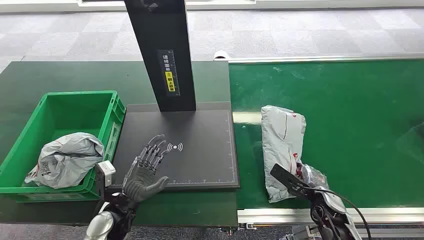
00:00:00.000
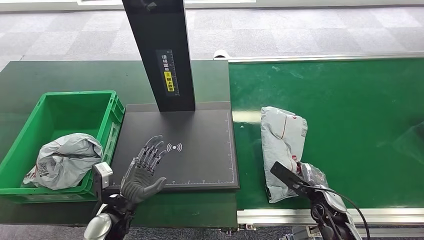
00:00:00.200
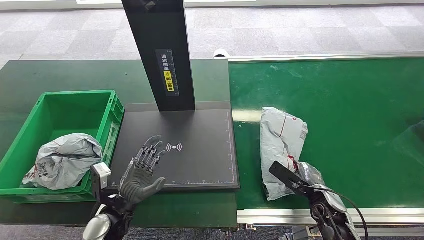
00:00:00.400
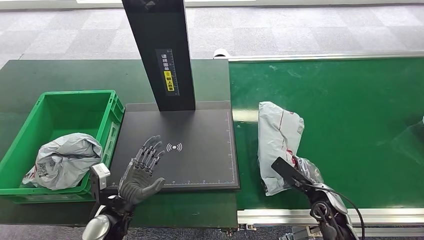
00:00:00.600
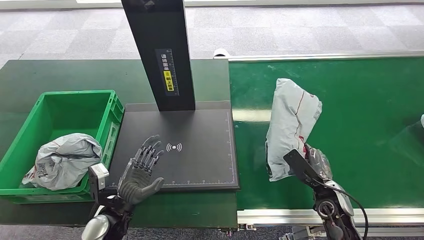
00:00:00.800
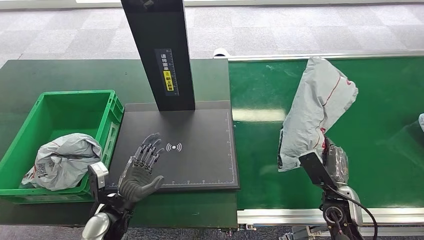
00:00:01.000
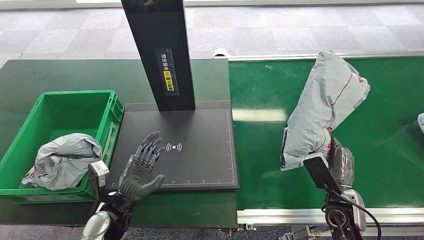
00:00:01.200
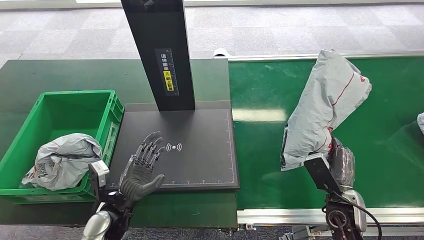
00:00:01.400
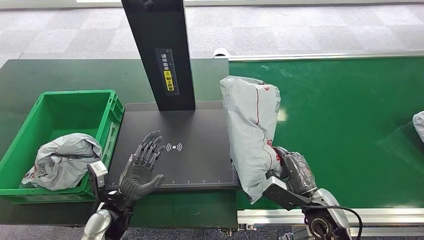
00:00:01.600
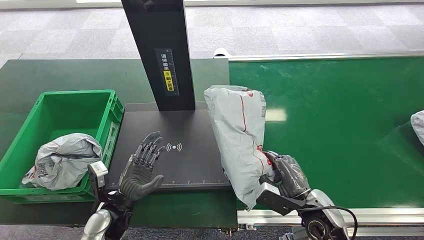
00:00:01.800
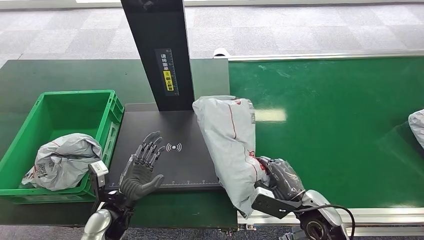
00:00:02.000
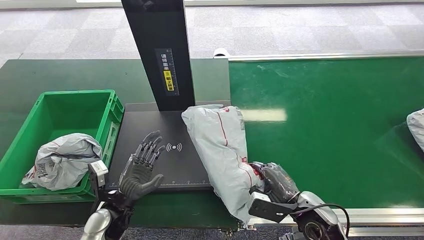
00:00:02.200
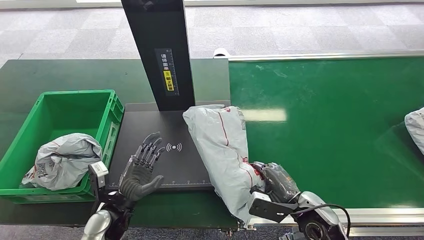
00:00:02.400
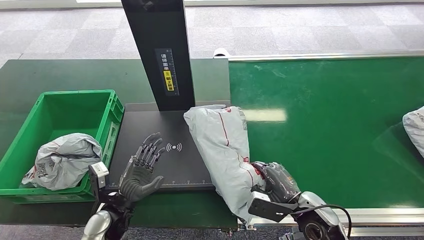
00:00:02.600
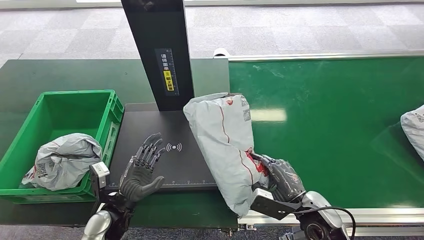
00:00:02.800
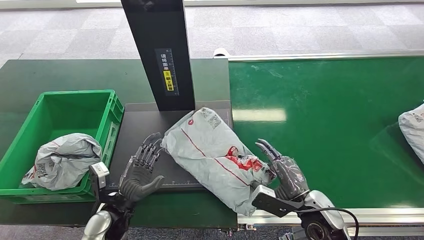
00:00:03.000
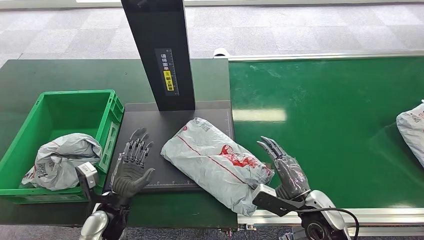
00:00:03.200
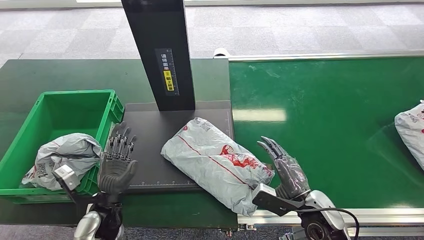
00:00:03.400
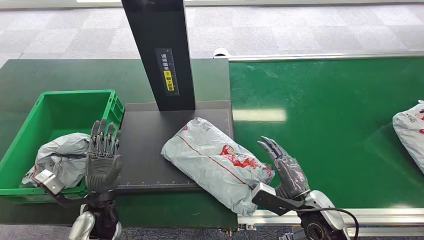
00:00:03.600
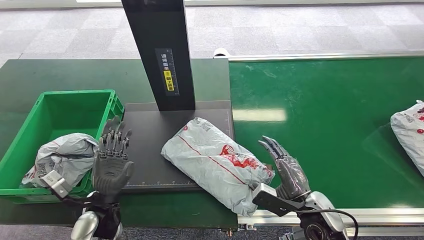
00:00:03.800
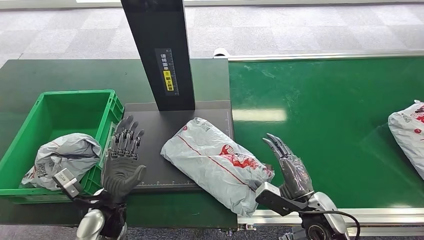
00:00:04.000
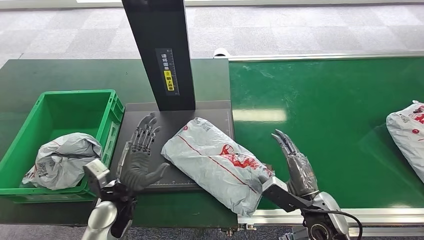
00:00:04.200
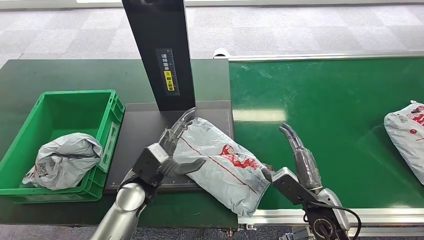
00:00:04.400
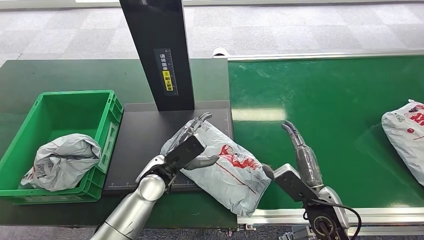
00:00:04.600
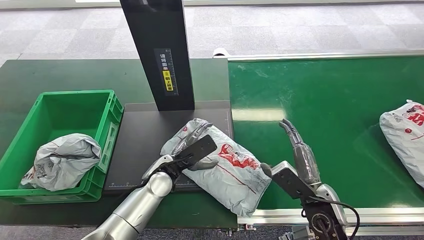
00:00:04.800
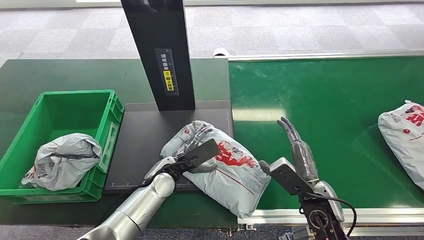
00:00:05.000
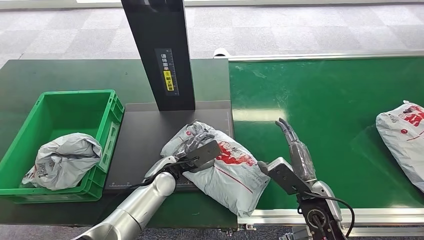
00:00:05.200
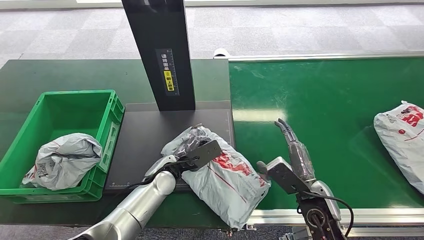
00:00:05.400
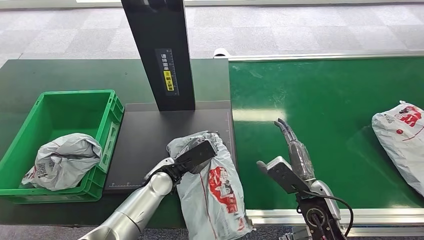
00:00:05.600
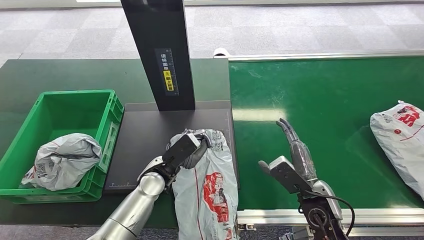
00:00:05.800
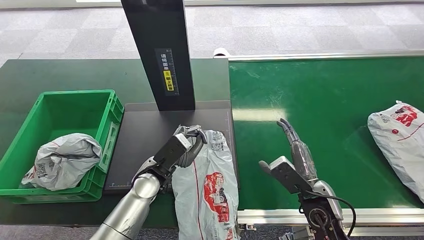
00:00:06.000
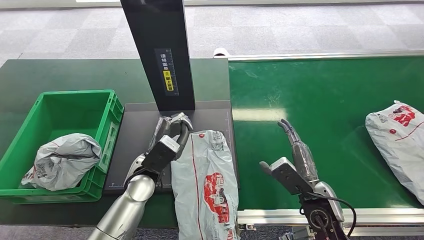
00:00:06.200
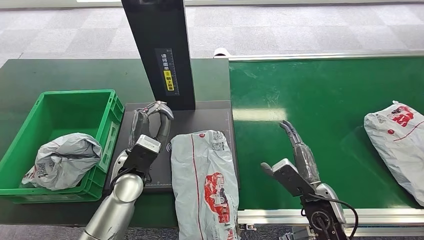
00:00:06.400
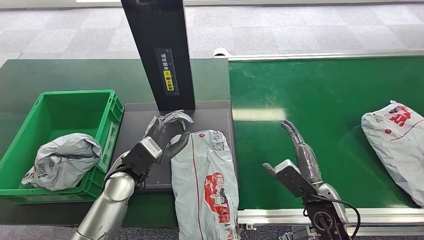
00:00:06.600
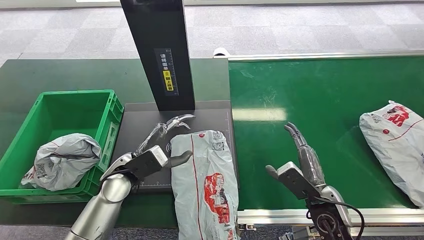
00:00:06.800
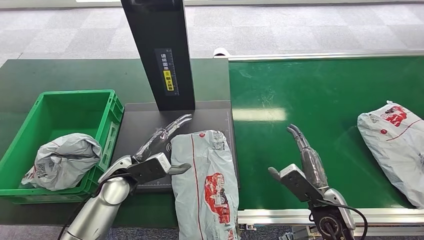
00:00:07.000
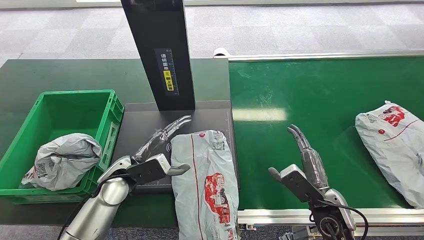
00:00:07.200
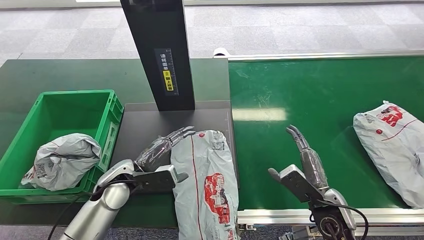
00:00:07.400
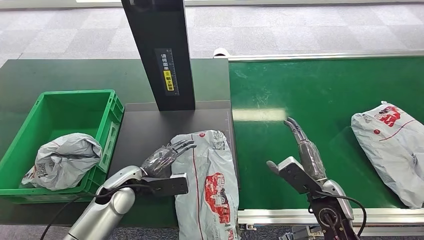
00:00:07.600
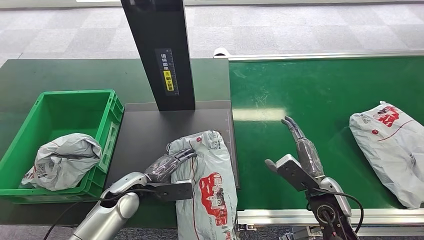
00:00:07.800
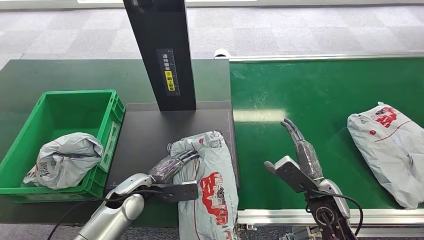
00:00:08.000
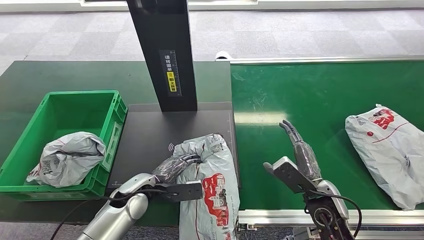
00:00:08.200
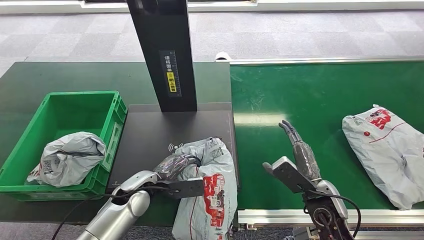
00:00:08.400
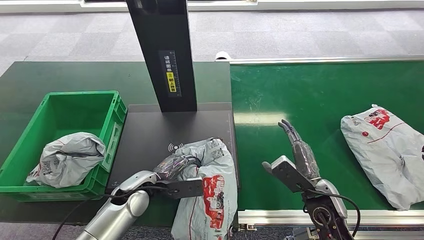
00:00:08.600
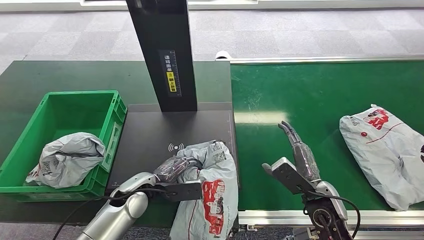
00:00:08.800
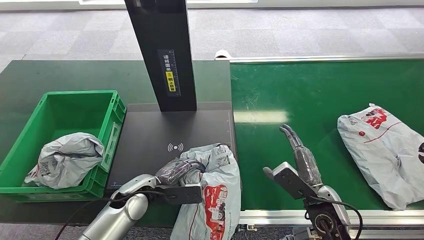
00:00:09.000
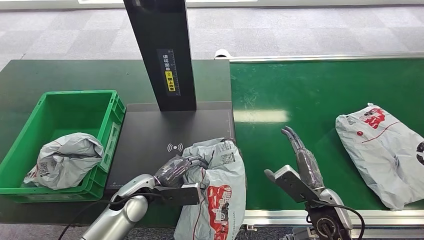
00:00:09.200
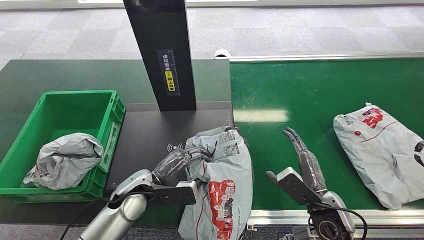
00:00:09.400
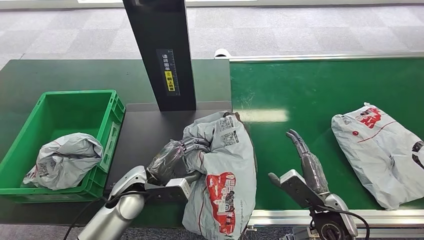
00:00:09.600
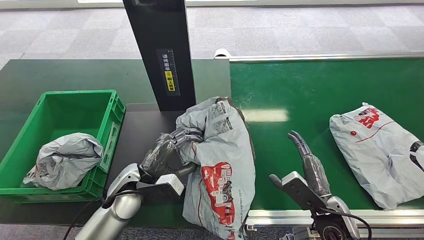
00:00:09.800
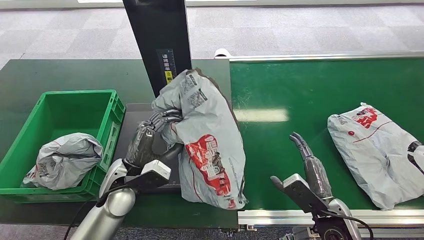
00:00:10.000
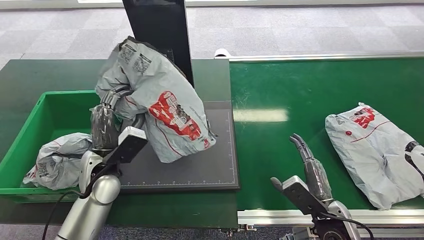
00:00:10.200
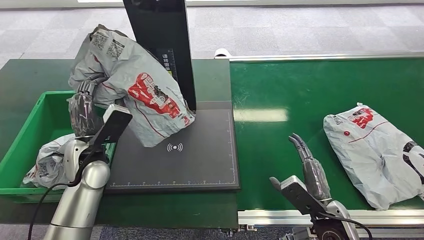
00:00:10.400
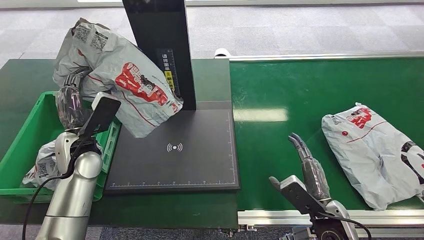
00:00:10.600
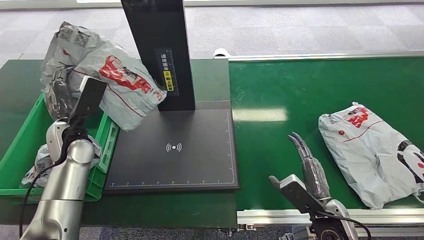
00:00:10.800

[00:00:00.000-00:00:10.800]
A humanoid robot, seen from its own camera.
Task of the whole recording: Weigh the package on the weighing device and place it in the left basket.
Step, 00:00:00.000 to 00:00:01.200: Pick up the package from the conveyor belt.
Step, 00:00:01.400 to 00:00:03.800: Place the package onto the inbound machine.
Step, 00:00:04.000 to 00:00:10.400: Pick up the package from the inbound machine.
00:00:03.000 to 00:00:04.600: The left hand travels to the right, forward and upward by roughly 15 cm.
00:00:06.200 to 00:00:07.800: The left hand moves to the left and downward, roughly 10 cm.

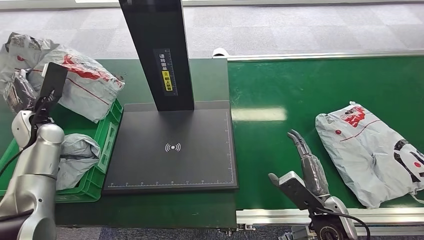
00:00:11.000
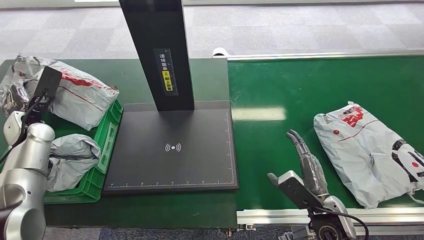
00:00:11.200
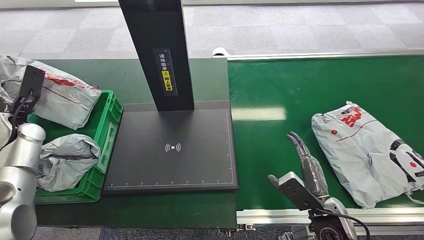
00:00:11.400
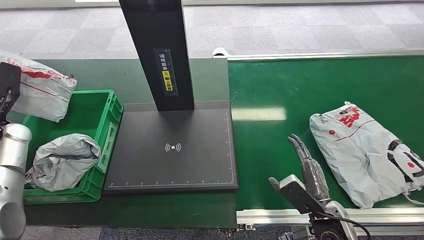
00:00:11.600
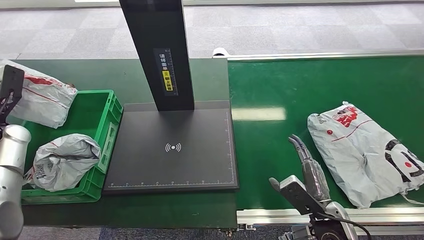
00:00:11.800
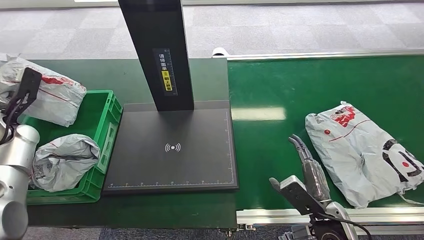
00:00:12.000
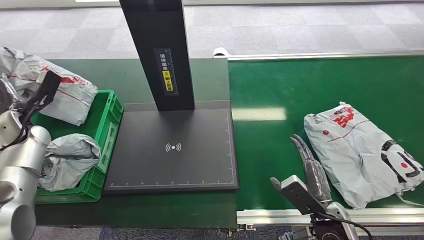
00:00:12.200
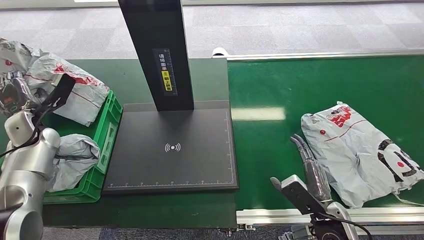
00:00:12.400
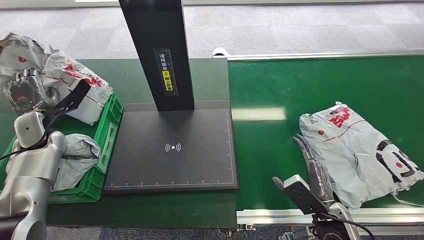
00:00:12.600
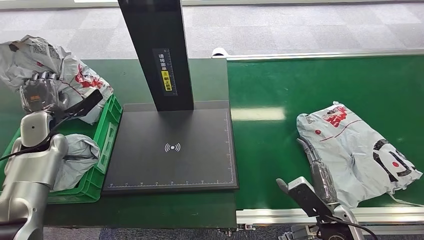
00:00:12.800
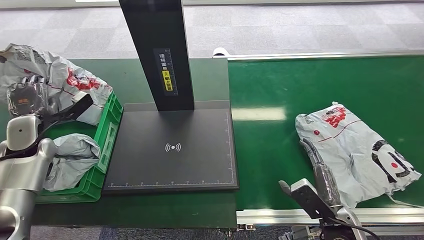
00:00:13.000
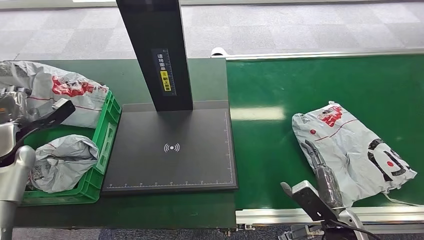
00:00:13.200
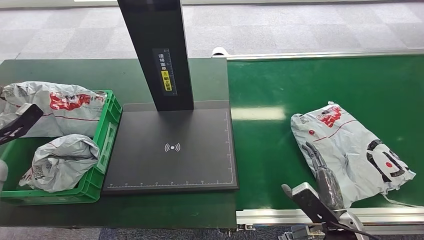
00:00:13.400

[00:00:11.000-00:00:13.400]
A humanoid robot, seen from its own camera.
Task of the whole recording: Weigh the package on the weighing device and place it in the left basket.
Step, 00:00:11.000 to 00:00:13.400: Place the package into the parcel locker.
